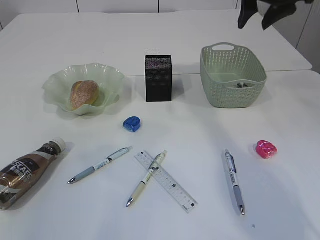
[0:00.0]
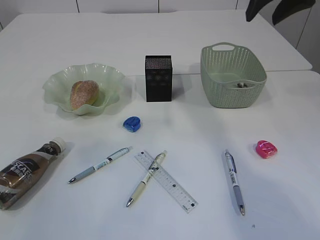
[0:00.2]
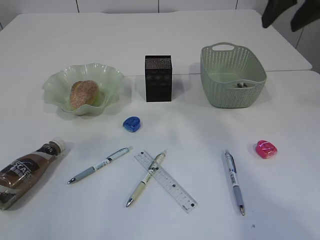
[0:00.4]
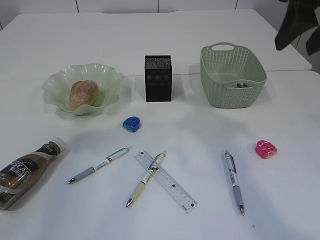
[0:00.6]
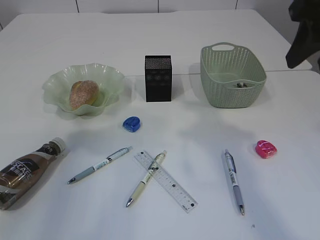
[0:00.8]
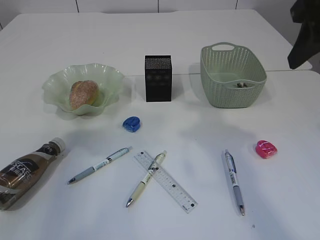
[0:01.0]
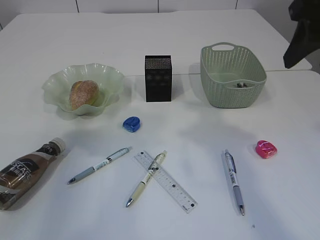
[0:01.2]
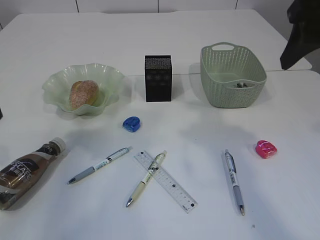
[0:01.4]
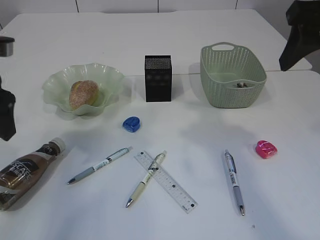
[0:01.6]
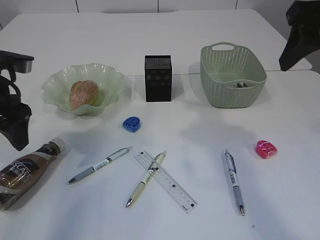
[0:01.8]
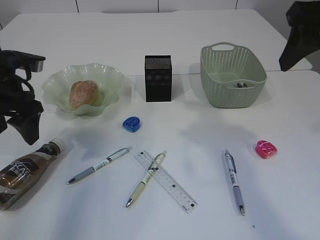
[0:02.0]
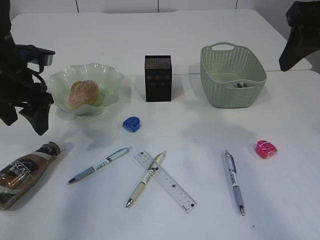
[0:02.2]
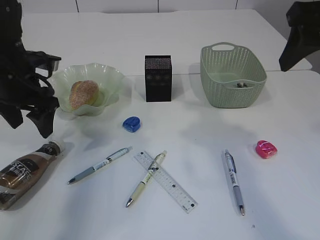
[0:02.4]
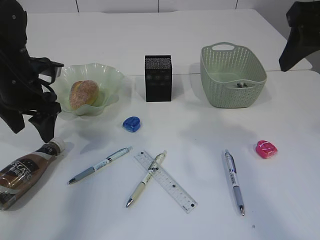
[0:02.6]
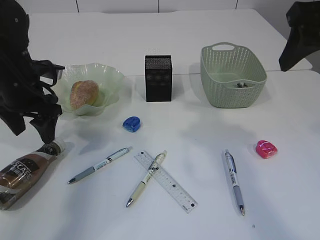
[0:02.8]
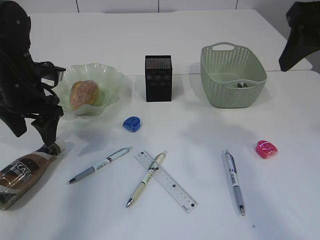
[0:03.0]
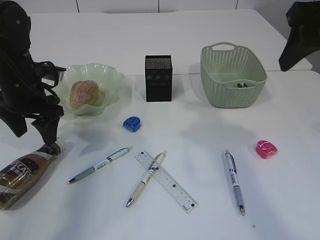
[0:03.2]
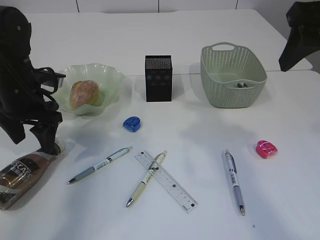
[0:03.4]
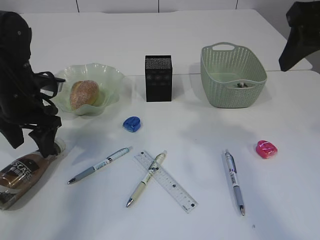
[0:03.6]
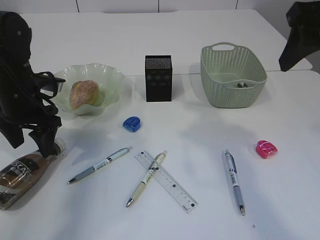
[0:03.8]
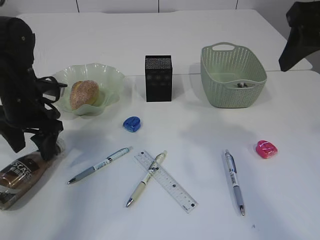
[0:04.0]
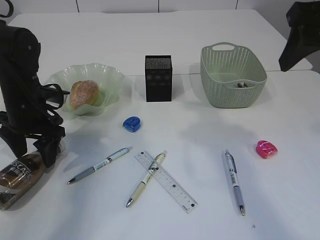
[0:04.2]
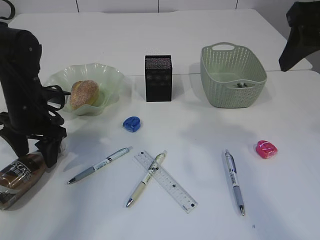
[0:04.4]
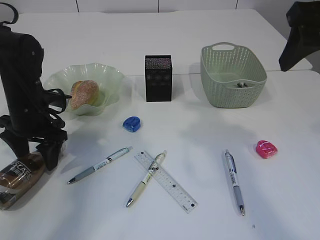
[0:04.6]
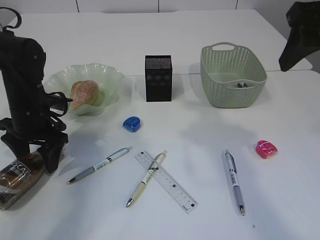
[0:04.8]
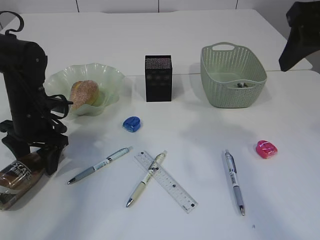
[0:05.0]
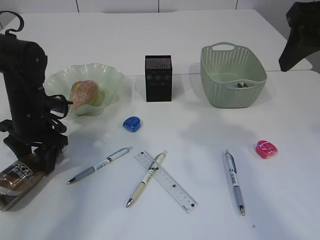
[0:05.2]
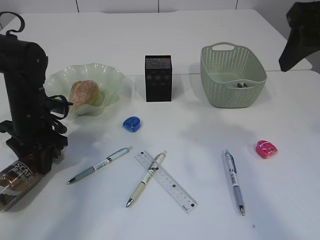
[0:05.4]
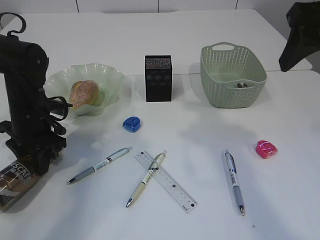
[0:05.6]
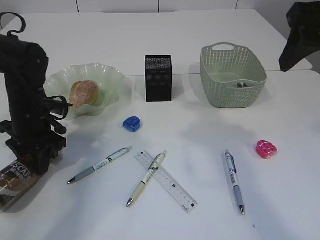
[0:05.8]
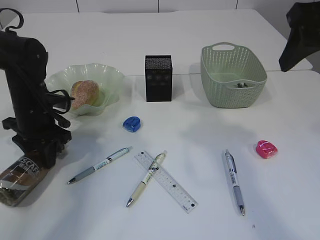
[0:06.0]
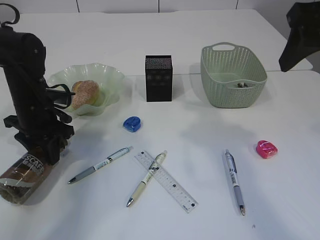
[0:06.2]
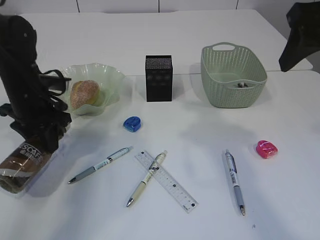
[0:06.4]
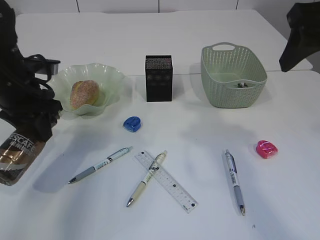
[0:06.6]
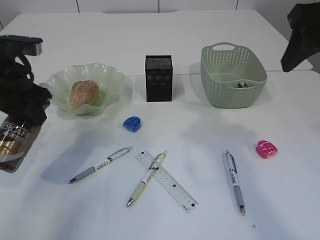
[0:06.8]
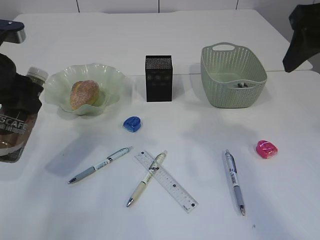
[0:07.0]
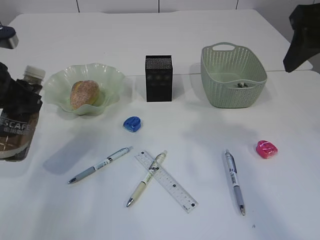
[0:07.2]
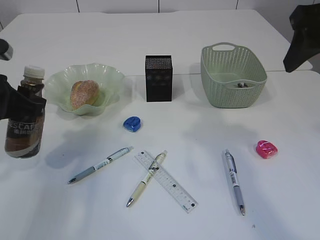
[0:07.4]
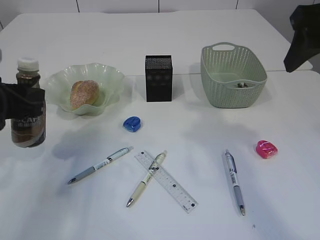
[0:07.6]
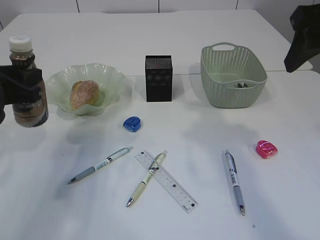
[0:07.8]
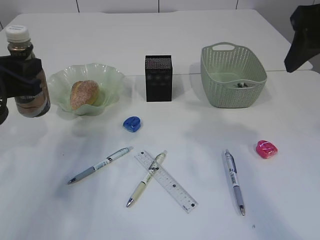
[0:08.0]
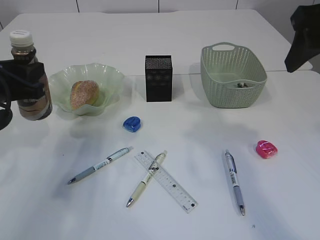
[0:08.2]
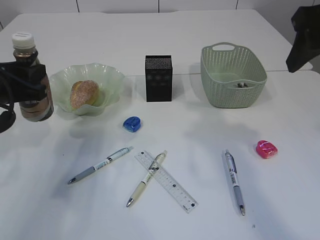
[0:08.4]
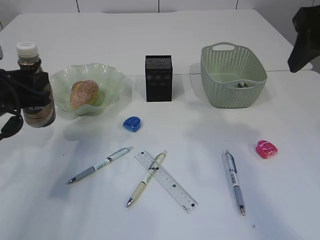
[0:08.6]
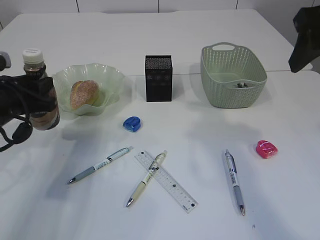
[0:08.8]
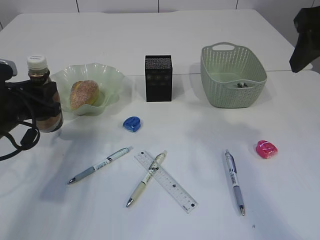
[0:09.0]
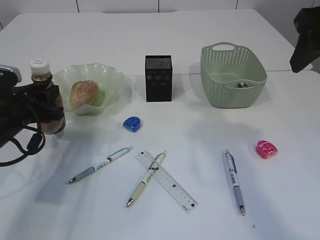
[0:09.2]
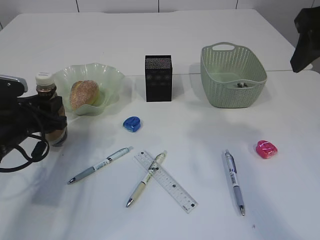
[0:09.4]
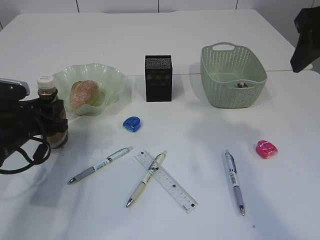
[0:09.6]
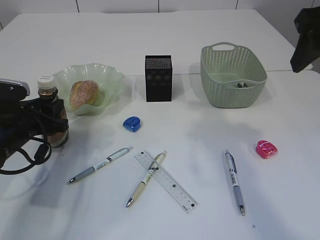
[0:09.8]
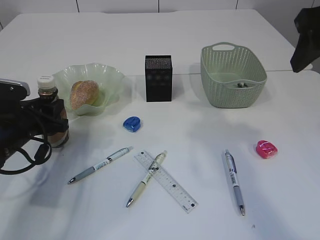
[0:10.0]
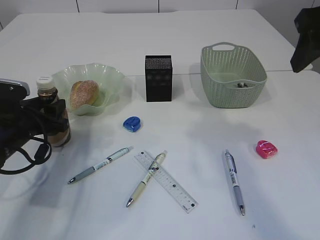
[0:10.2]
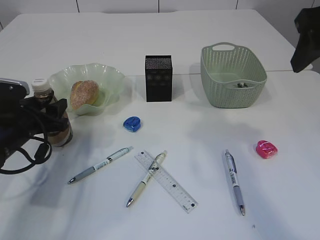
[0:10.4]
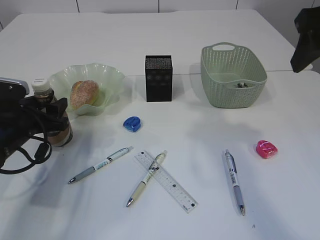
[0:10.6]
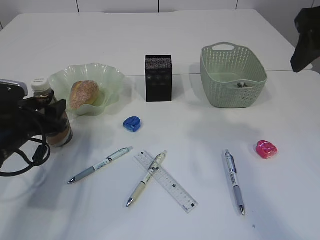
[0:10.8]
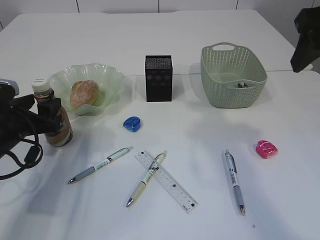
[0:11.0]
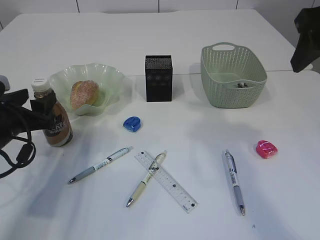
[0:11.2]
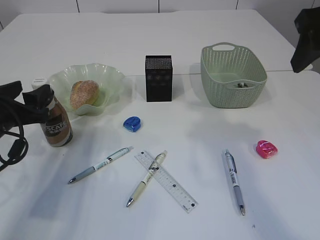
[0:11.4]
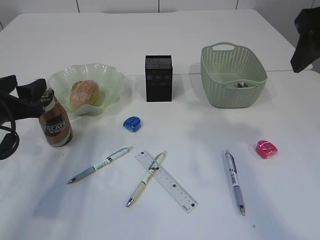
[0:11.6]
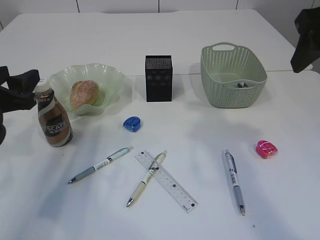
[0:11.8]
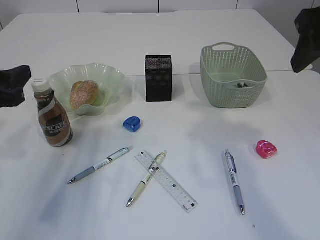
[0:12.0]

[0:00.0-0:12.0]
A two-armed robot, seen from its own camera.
Step, 0:00.0 to 0:06.6: Pick up the bottle with the left arm.
0:00.0 to 0:01.6: The right gripper goes some 15 cm backward. The left gripper goes about 20 cm forward and downward.
0:01.6 to 0:03.0: The left gripper heads downward and forward, covering roughly 10 cm.
0:03.0 to 0:04.4: There are only small adjustments of the grippers.
0:04.4 to 0:06.0: The left gripper closes.
0:06.0 to 0:07.6: The left gripper travels backward and upward by about 15 cm.
0:07.6 to 0:09.0: The left gripper shifts approximately 5 cm downward.
0:09.0 to 0:10.4: The left gripper opens.
0:10.4 to 0:12.0: The left gripper travels upward and backward by roughly 15 cm.

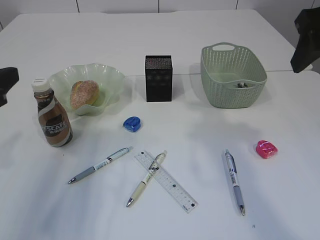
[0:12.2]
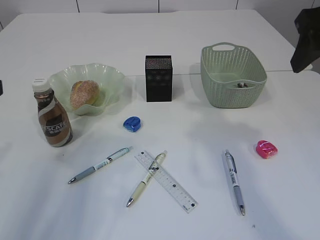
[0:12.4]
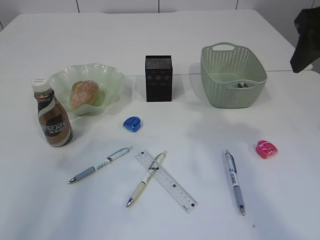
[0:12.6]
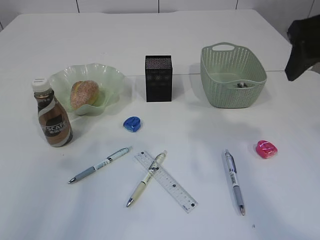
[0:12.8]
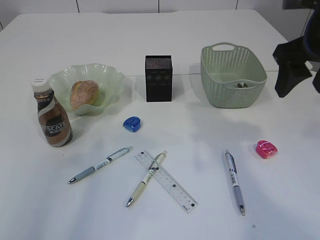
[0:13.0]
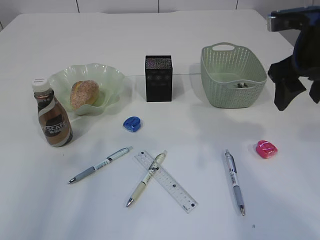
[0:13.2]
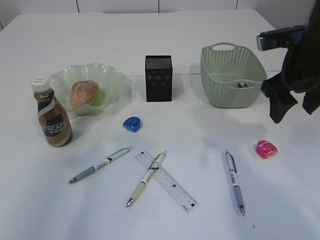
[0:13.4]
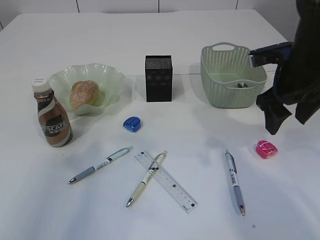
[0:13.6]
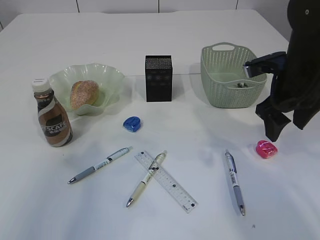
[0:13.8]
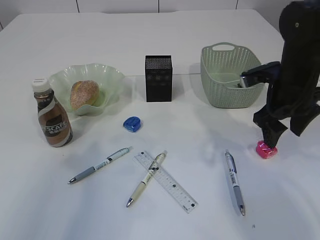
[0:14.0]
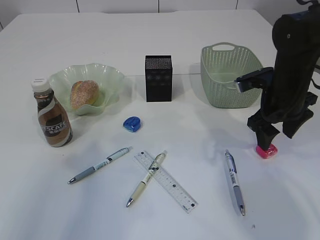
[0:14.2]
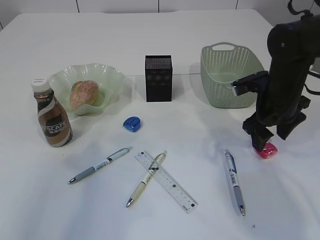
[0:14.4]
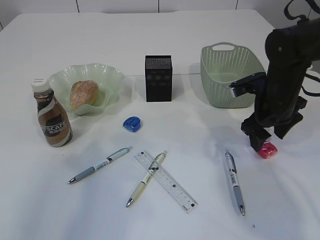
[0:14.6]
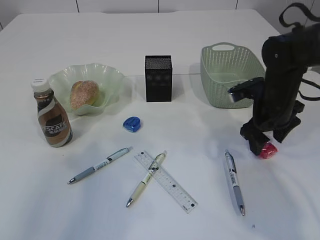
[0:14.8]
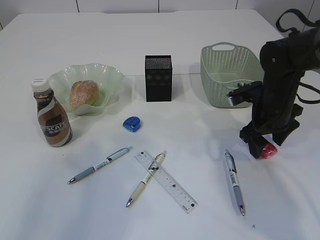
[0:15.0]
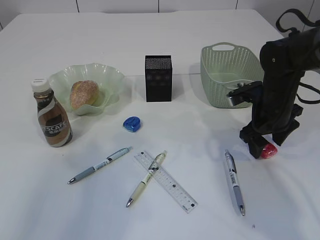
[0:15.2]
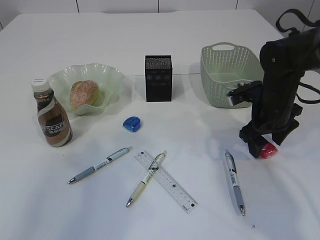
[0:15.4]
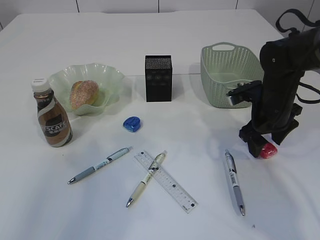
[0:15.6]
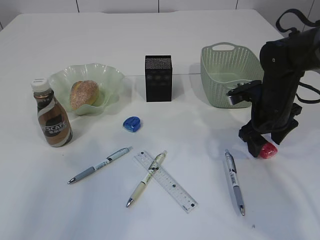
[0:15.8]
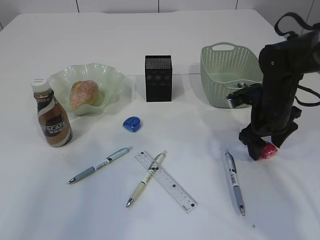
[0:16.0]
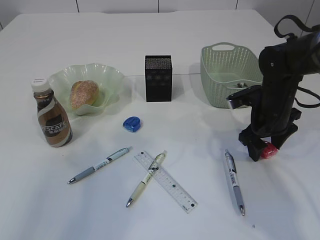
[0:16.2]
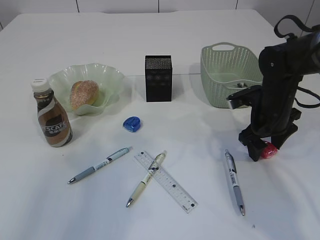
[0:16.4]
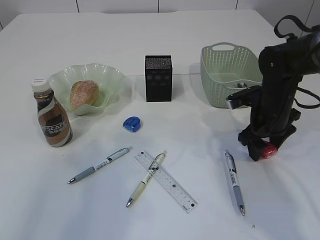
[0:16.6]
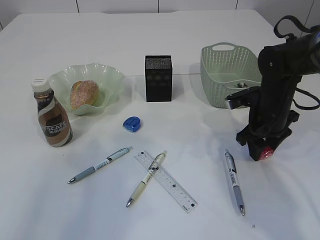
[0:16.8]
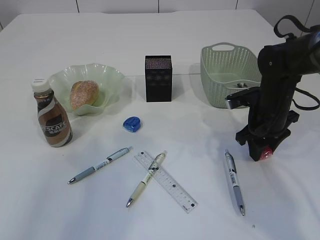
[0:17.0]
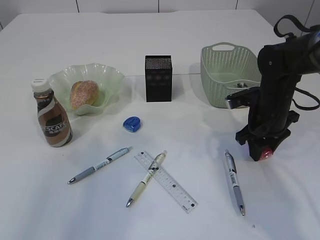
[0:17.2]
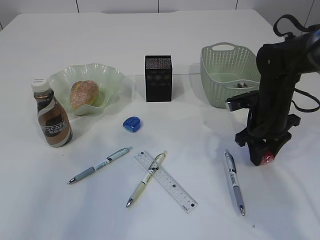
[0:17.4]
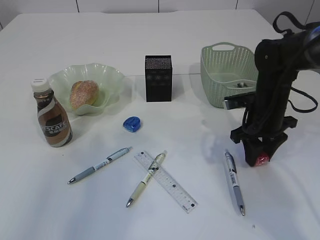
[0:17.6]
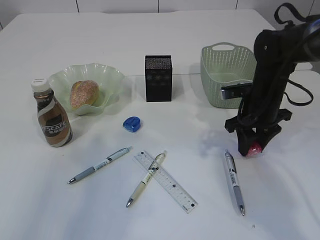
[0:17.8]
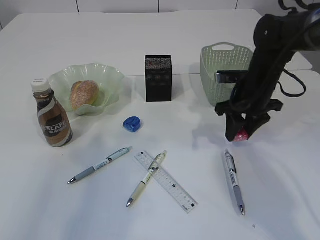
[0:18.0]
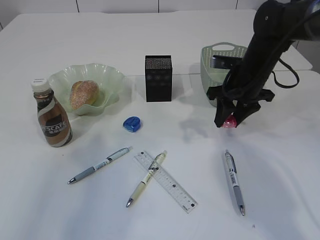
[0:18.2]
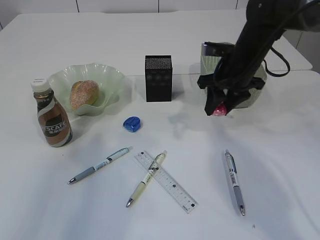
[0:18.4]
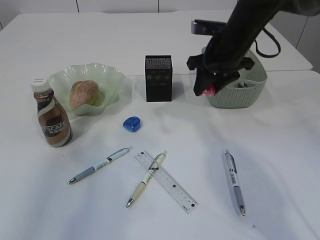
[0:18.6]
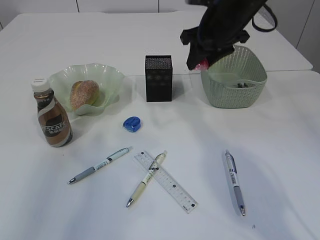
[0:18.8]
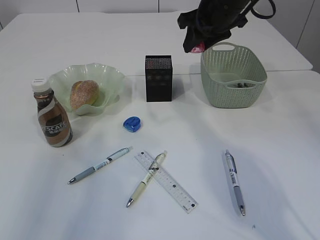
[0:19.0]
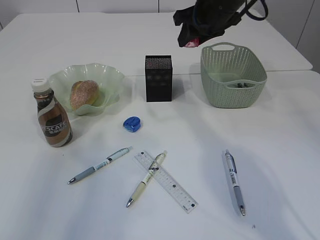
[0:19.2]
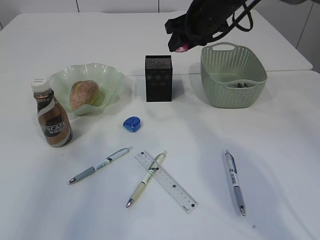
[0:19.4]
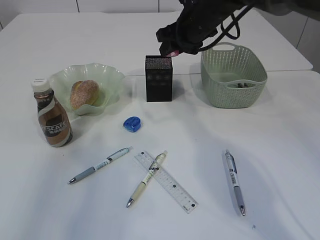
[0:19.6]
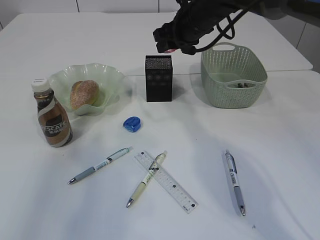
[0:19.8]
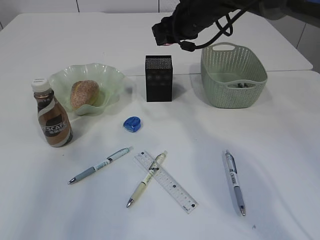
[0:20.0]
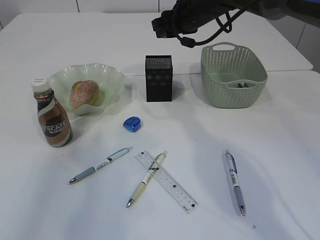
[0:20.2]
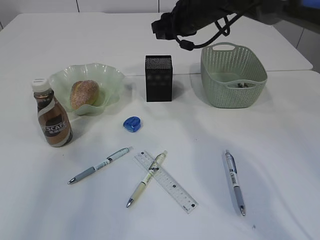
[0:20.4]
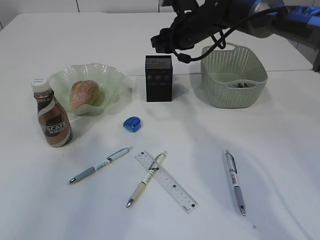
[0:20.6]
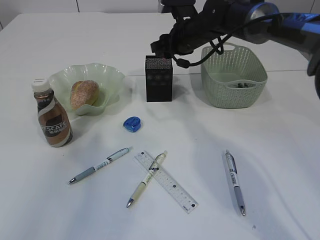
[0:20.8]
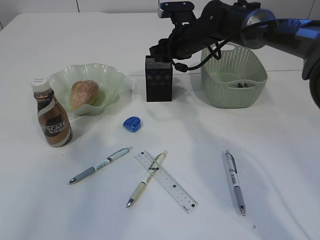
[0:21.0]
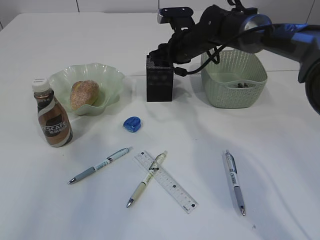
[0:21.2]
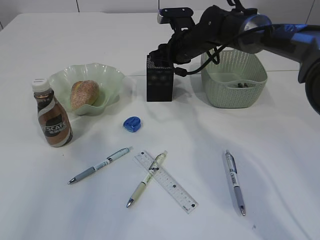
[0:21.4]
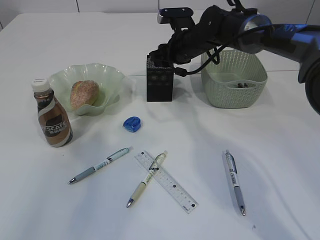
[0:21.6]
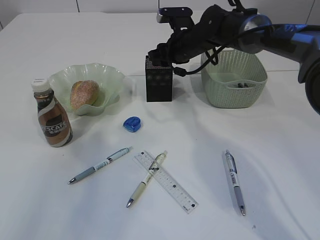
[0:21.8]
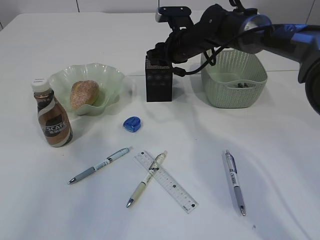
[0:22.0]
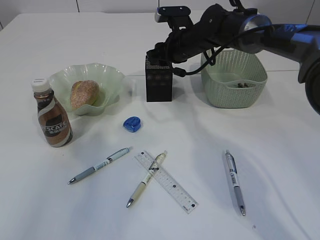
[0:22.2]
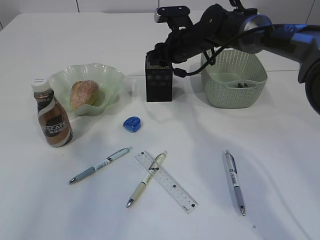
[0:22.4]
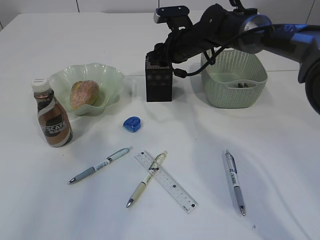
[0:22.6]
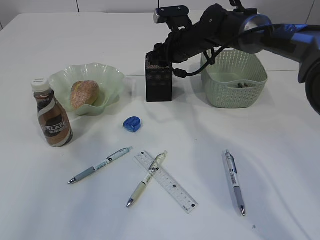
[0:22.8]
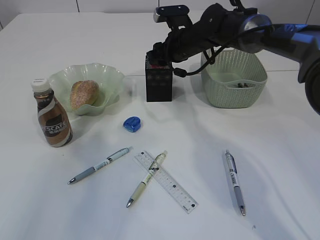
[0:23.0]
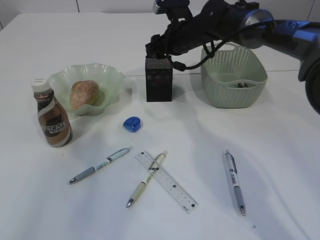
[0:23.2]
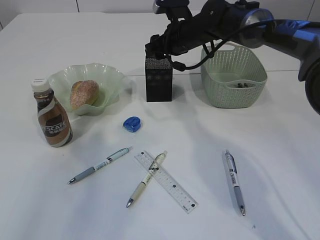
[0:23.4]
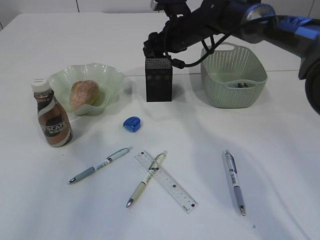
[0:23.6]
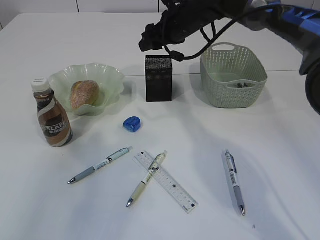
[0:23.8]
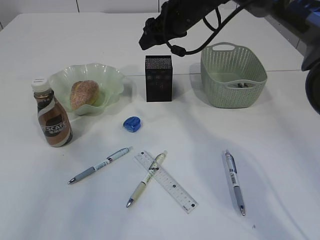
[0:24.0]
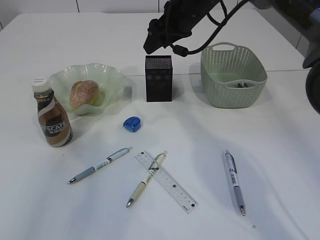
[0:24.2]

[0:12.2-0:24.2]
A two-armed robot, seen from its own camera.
Step, 0:12.2 to 0:18.0: Pick up the red pencil sharpener.
Step, 0:18.2 to 0:24.0: Place the red pencil sharpener into the pen holder.
0:12.2 to 0:13.8: The right gripper goes approximately 15 cm downward and forward. The left gripper moves upward and backward, roughly 10 cm.
0:13.8 to 0:15.2: The right gripper goes roughly 10 cm downward.
0:15.2 to 0:16.6: Both grippers stay put.
0:16.6 to 0:18.2: The right gripper heads upward, covering about 5 cm, and closes up.
0:18.2 to 0:19.8: The right gripper travels to the left, upward and forward by about 15 cm.
0:19.8 to 0:21.2: The right gripper travels downward by about 5 cm.
0:21.2 to 0:22.6: The grippers stay close to where they were, moving slightly.
0:22.6 to 0:24.2: The right gripper travels upward by approximately 10 cm.
